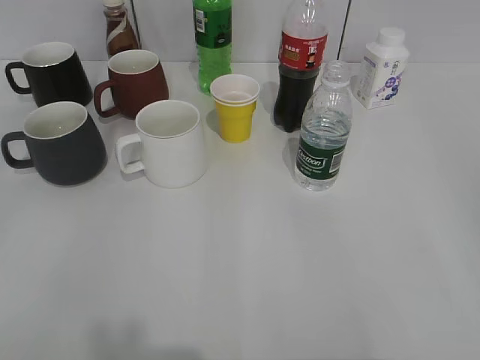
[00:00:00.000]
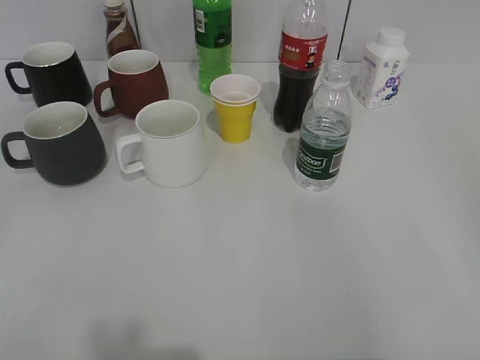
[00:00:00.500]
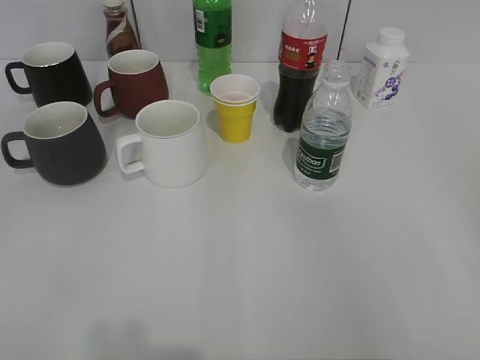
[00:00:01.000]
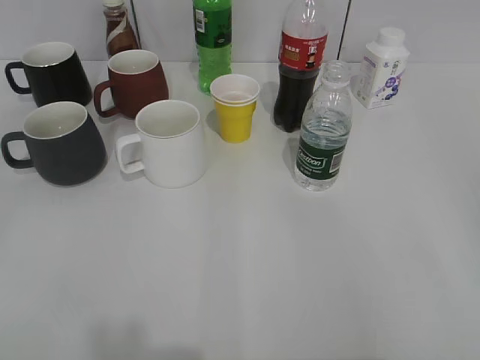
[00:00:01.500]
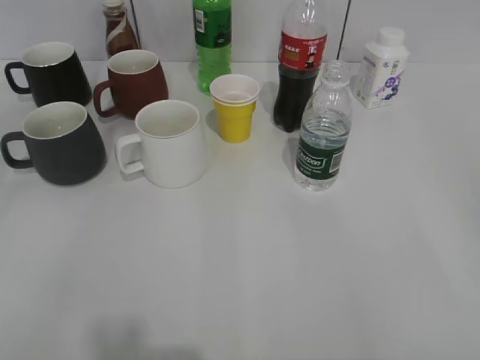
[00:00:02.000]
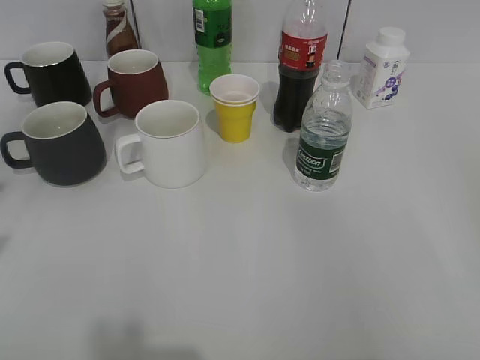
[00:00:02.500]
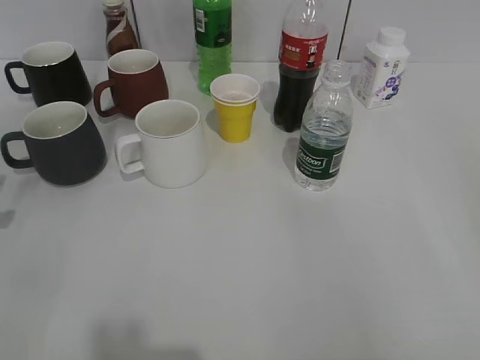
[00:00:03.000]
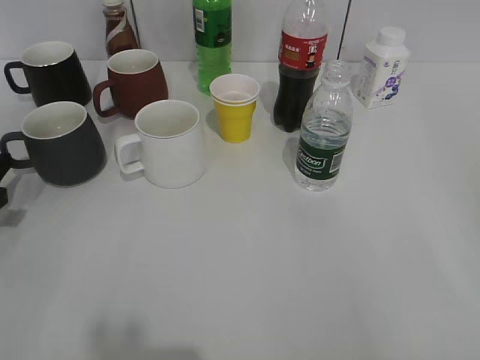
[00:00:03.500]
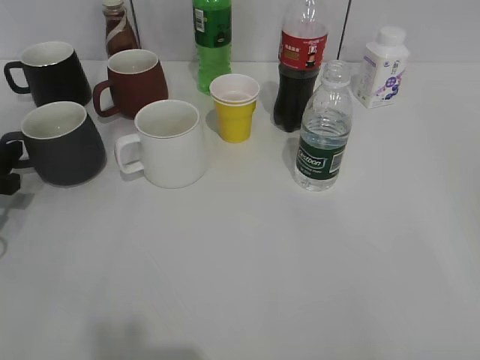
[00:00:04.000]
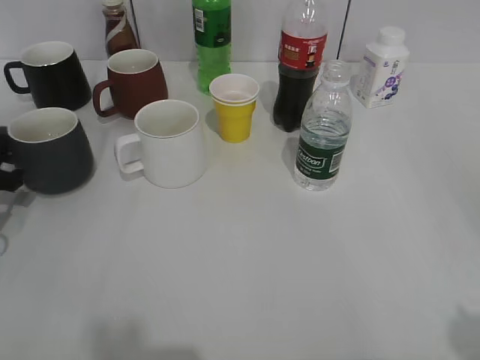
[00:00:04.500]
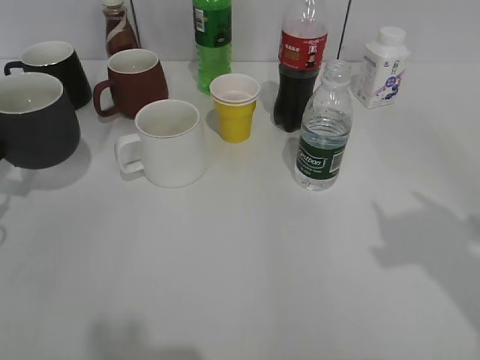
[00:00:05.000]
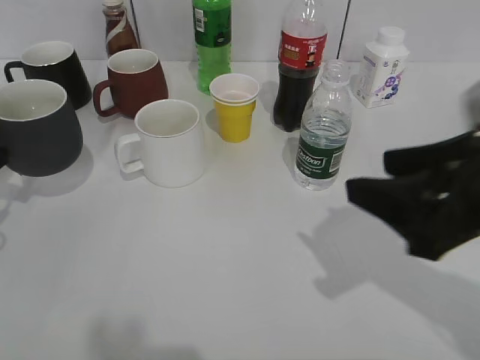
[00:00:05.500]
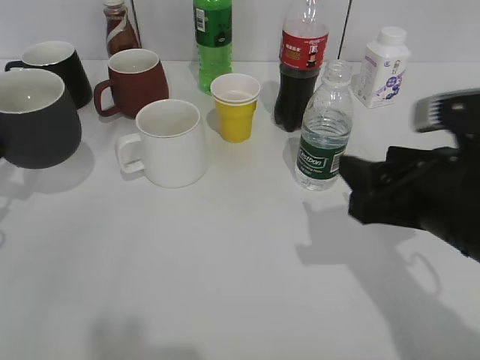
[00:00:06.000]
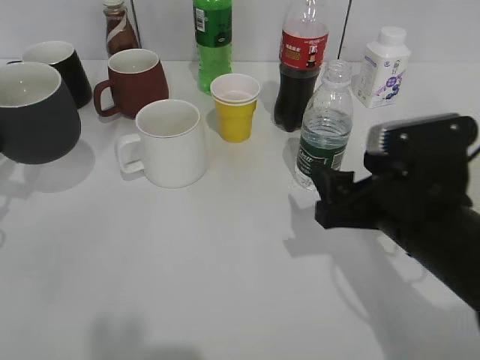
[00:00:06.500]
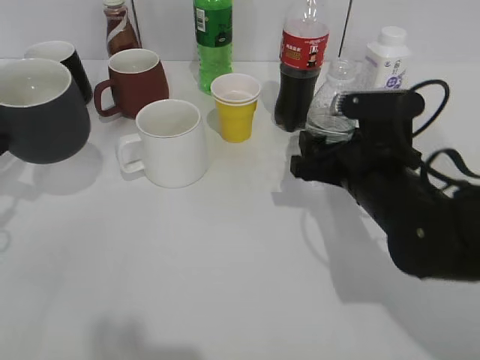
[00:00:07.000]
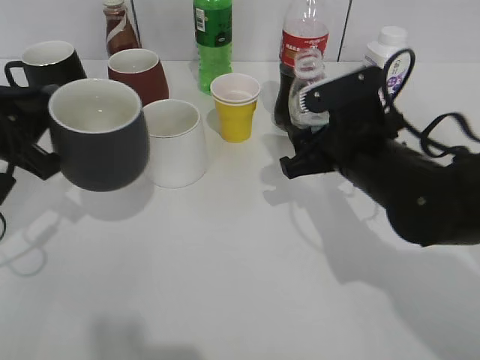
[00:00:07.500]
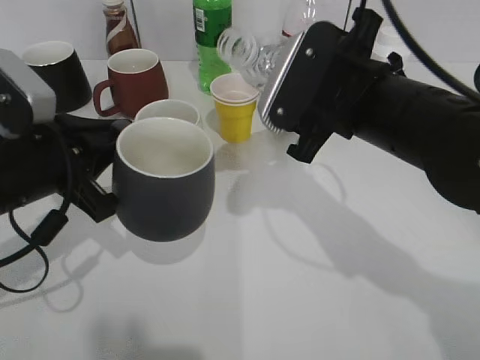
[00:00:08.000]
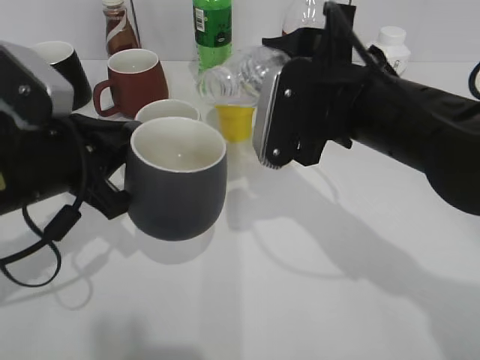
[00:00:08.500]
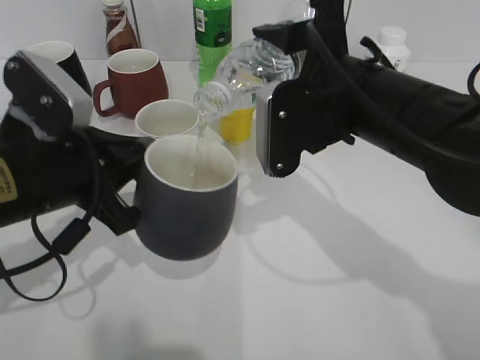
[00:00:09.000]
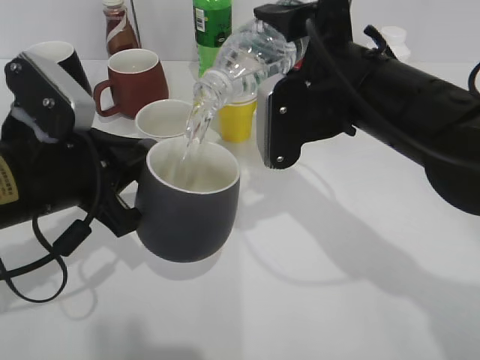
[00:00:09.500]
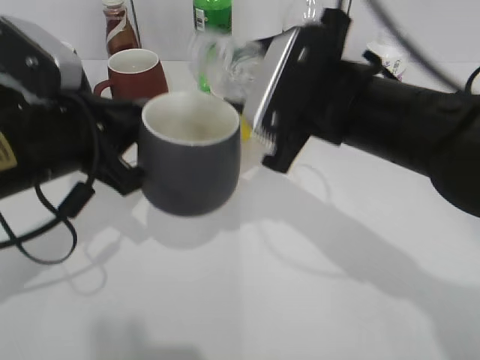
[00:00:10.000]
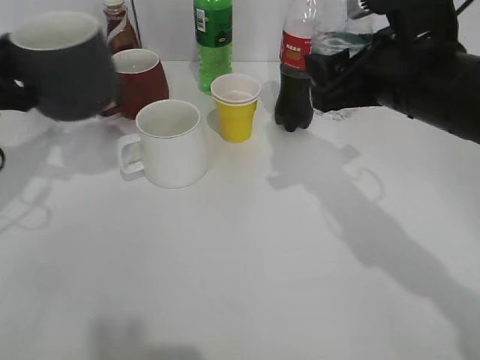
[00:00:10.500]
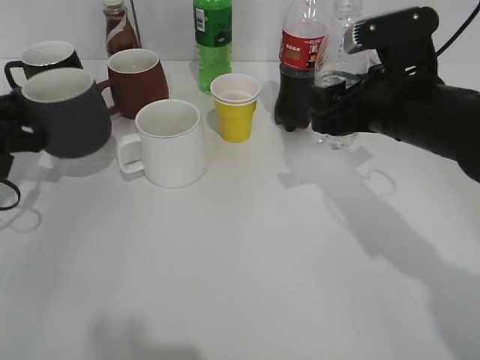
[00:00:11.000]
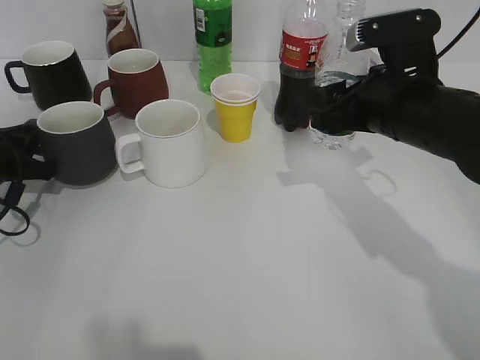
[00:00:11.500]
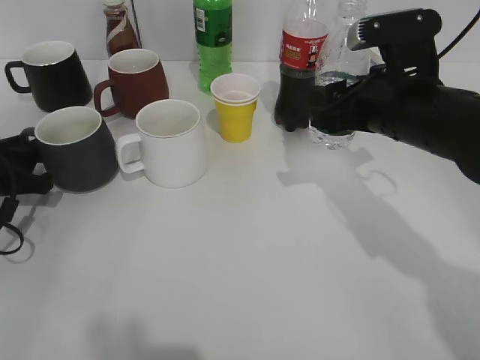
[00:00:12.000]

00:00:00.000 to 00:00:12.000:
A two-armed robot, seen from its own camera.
Step, 00:00:05.500 to 00:00:07.000: Grasp the bottle with water with right gripper.
Step, 00:00:07.500 to 00:00:10.000: Pour the water from bottle to cup with right gripper.
00:00:02.000 to 00:00:04.000: The left gripper is displaced forward and downward by approximately 35 cm.
00:00:04.000 to 00:00:06.000: The right gripper travels forward, to the left and downward by approximately 25 cm, and closes. The left gripper moves upward, roughly 5 cm, and closes its fingers.
00:00:06.000 to 00:00:08.000: The left gripper shifts approximately 15 cm to the right and backward. The right gripper moves forward and to the left, some 10 cm, and opens, then closes again.
00:00:10.000 to 00:00:12.000: The left gripper is displaced to the left, downward and forward by roughly 20 cm. The right gripper shifts roughly 5 cm to the right.

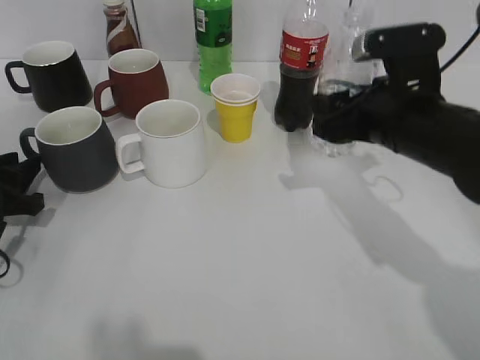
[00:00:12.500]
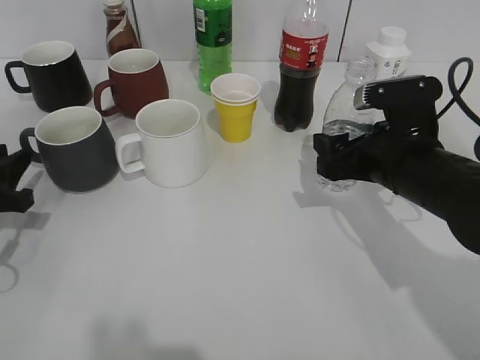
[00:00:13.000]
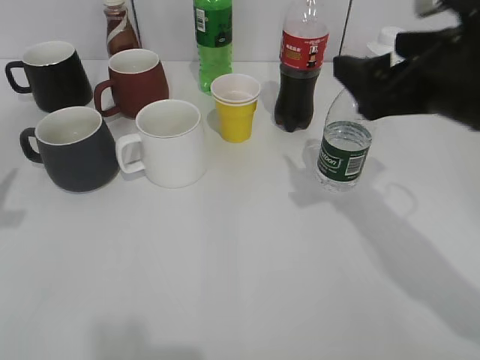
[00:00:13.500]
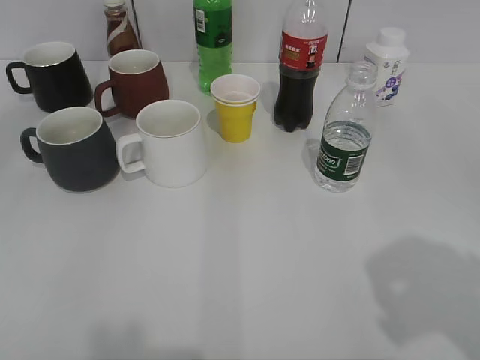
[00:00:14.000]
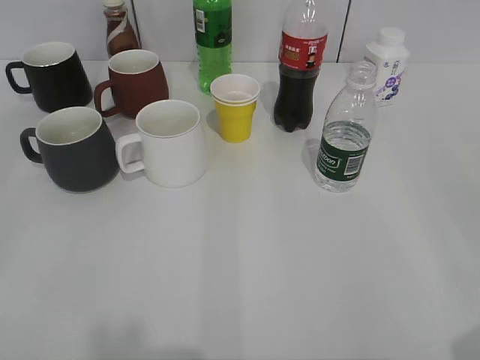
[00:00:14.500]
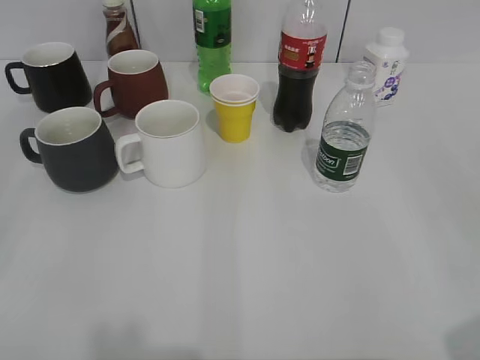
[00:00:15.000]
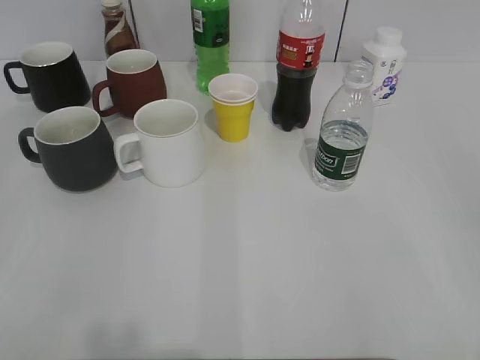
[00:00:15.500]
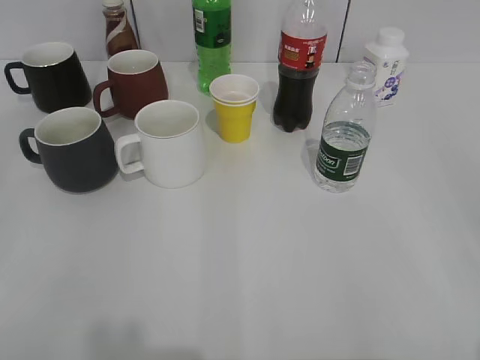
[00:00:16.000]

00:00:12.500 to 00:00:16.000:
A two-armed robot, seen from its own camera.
00:00:12.500 to 00:00:14.500: The right gripper heads backward and to the right, covering about 30 cm, and opens; the left gripper moves backward and upward, about 30 cm, and opens its fingers.

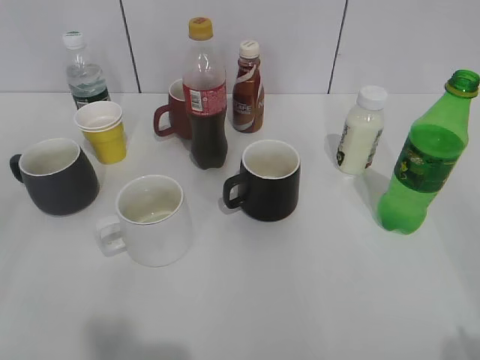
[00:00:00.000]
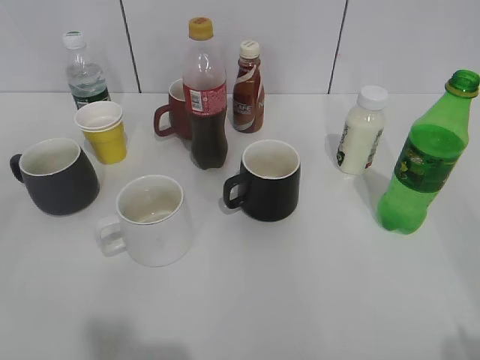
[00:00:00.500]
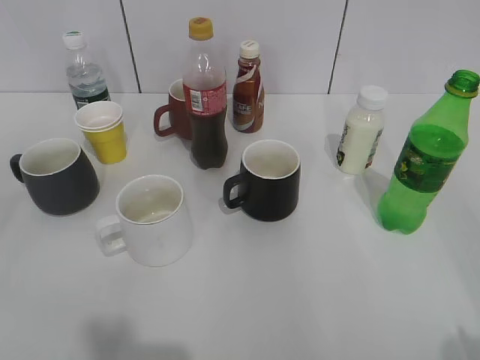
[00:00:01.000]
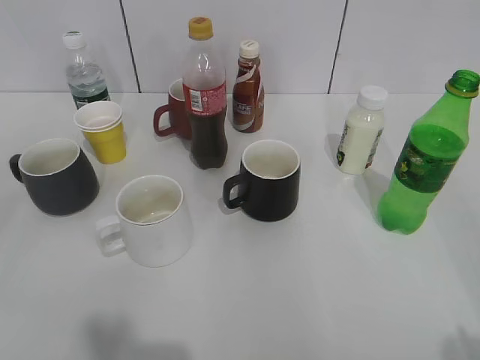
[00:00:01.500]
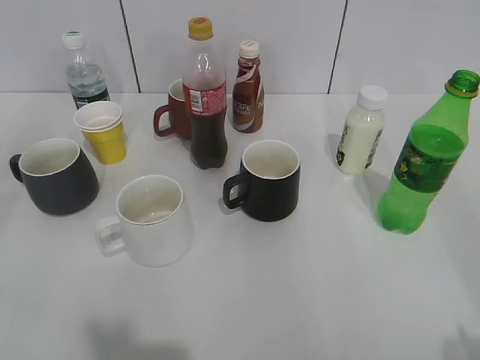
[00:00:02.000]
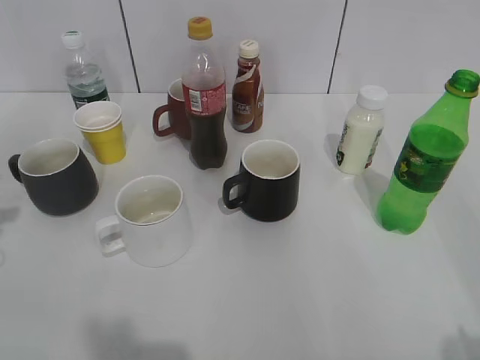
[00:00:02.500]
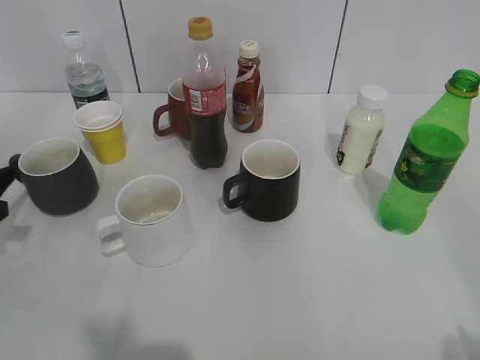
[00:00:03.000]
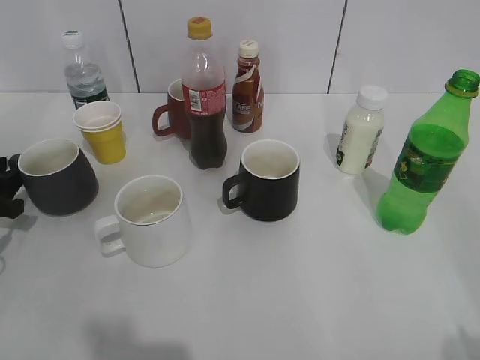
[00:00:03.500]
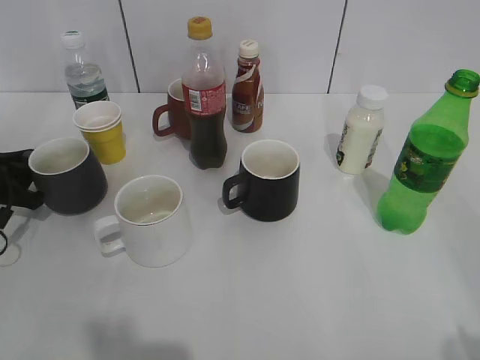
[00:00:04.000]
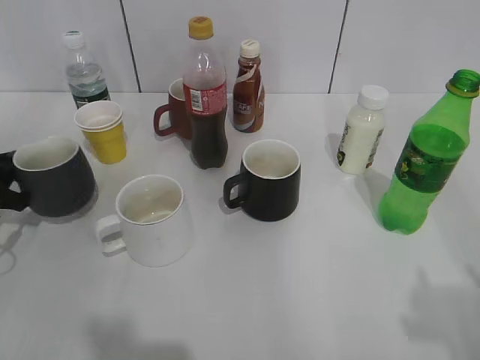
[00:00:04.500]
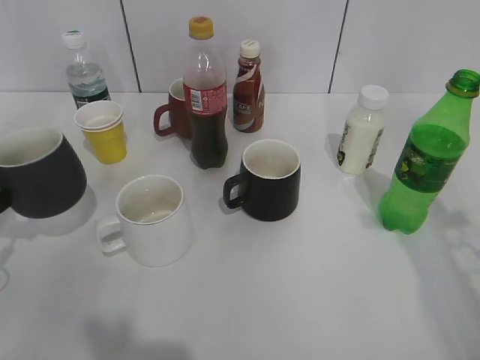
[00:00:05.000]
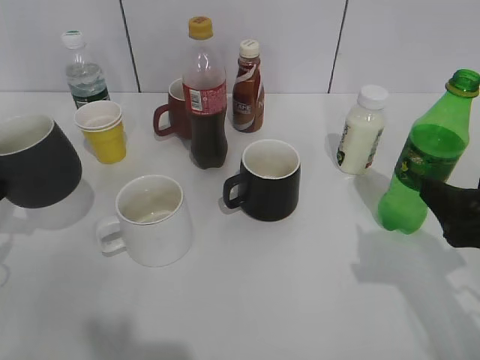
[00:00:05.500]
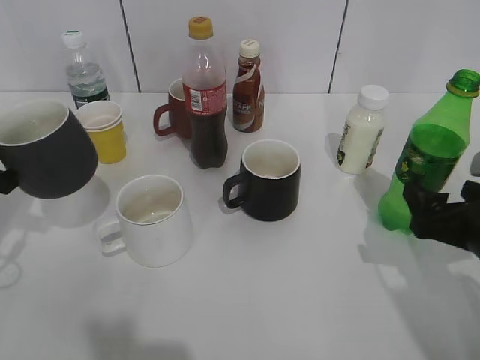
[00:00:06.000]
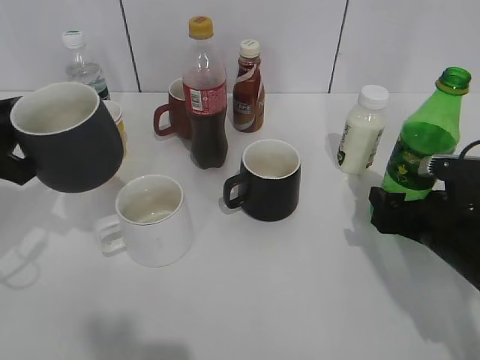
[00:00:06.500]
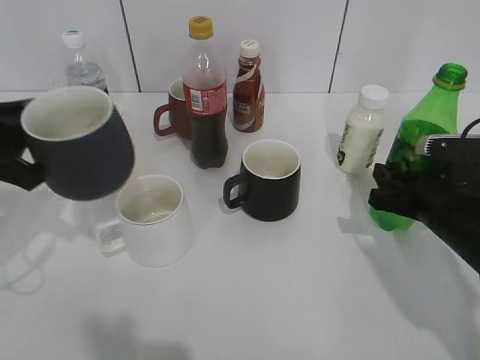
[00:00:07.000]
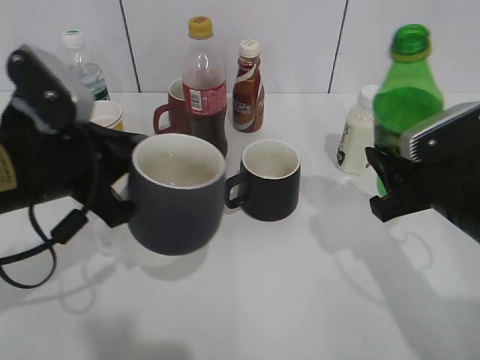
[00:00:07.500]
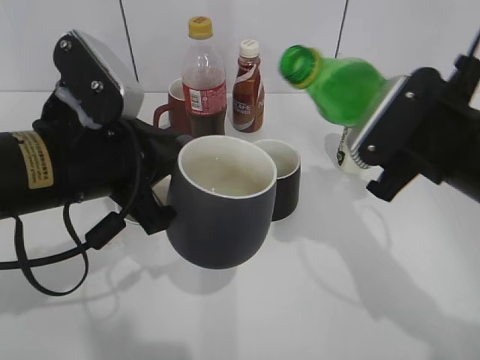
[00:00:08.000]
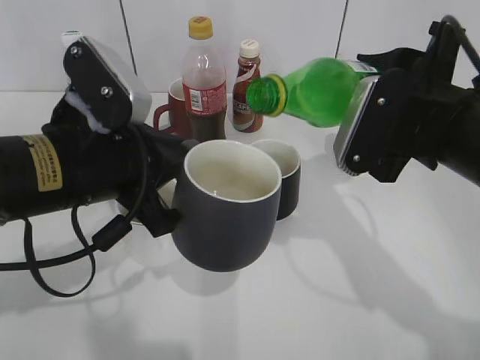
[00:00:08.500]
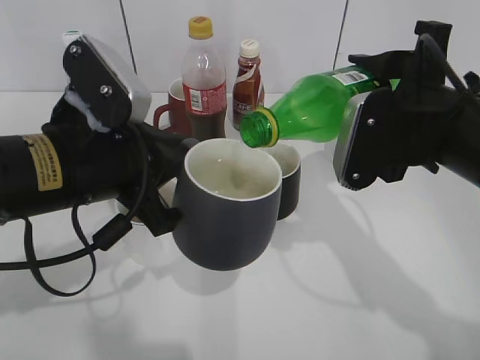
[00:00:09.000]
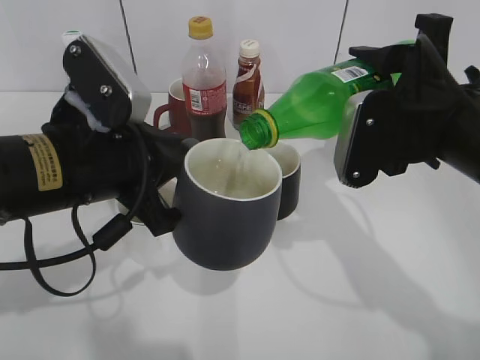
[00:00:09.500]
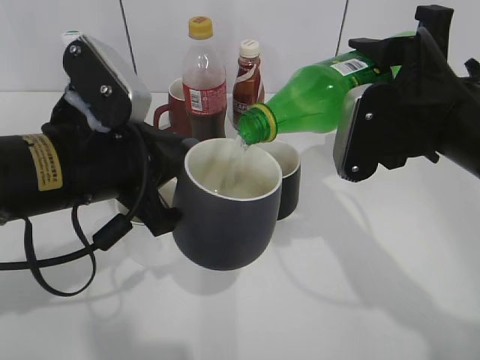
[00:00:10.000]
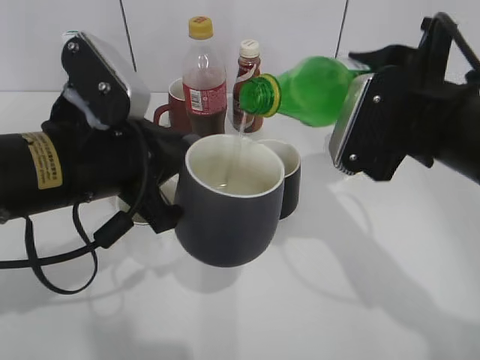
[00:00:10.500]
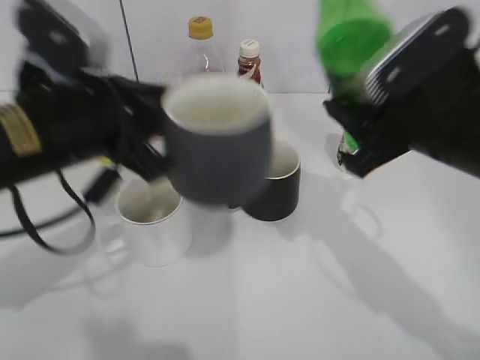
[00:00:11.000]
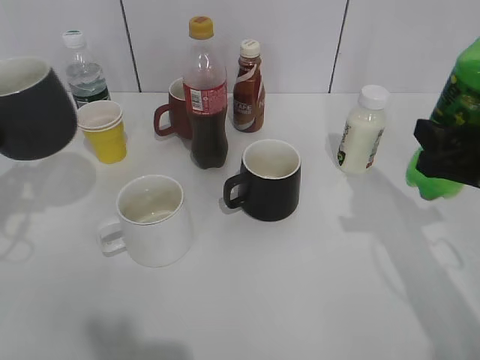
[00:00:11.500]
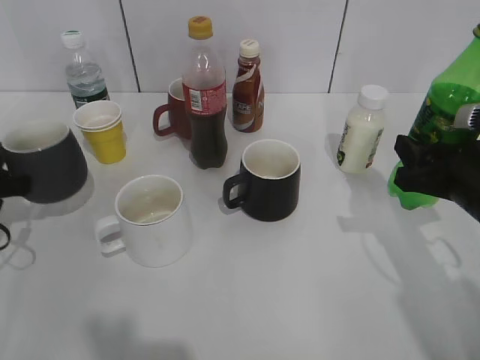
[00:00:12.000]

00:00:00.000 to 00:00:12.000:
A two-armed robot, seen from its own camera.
Step, 00:00:03.000 to 00:00:04.000: Grasp the grey cup with left gripper.
Step, 00:00:04.500 to 00:00:05.500: Lift the grey cup with left gripper.
Step, 00:00:06.000 to 00:00:07.000: Grasp the bottle with sprite with right gripper.
Step, 00:00:07.500 to 00:00:10.500: Pour the sprite from bottle to cup with right gripper.
00:00:02.000 to 00:00:04.000: The left gripper is displaced downward and forward by about 35 cm, and opens, then closes again.
00:00:04.000 to 00:00:06.000: The right gripper is displaced forward and downward by about 25 cm, and opens. The left gripper is displaced upward and backward by roughly 10 cm.
00:00:06.000 to 00:00:08.000: The right gripper goes about 10 cm upward and to the left, and closes its fingers. The left gripper heads to the right, covering about 20 cm.
00:00:10.000 to 00:00:12.000: The right gripper travels downward and to the right by roughly 10 cm. The left gripper shifts roughly 20 cm to the left and downward.
